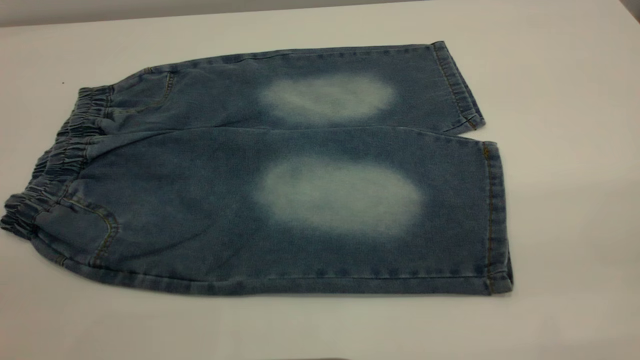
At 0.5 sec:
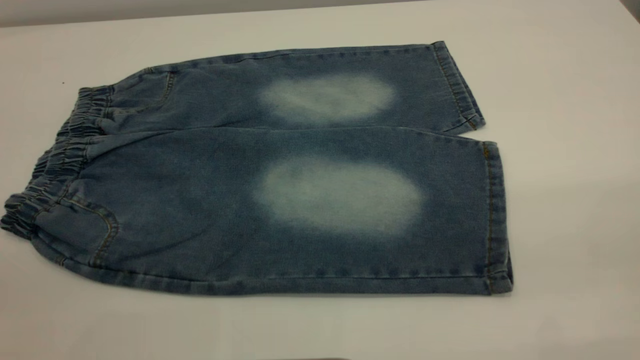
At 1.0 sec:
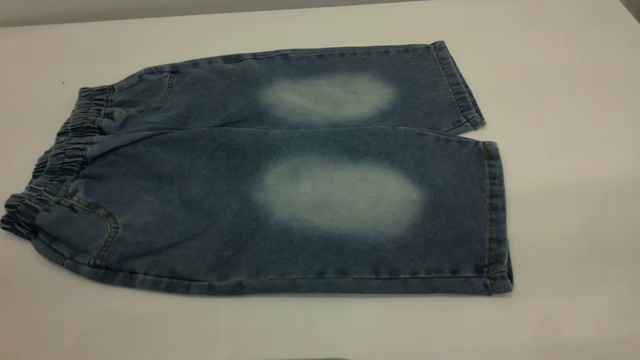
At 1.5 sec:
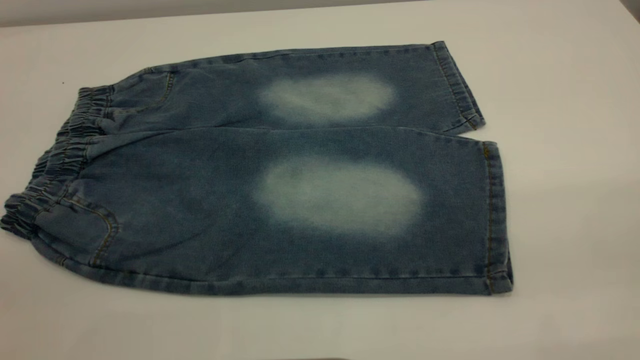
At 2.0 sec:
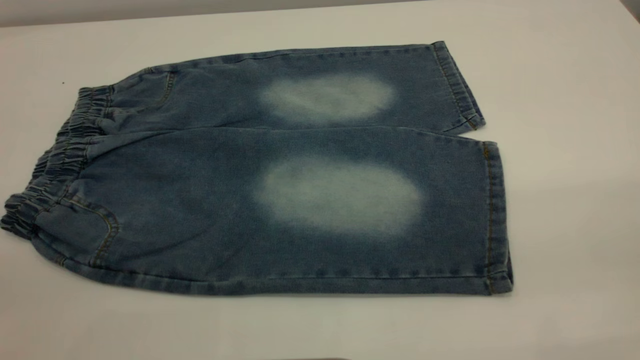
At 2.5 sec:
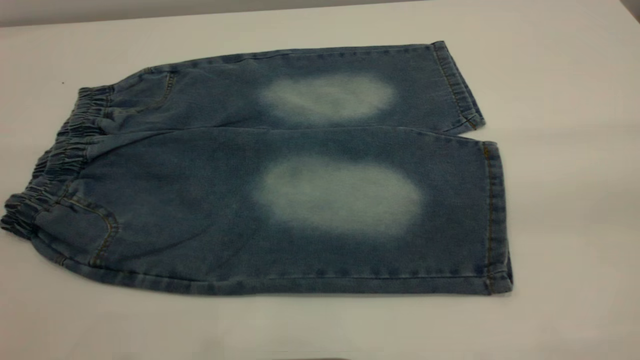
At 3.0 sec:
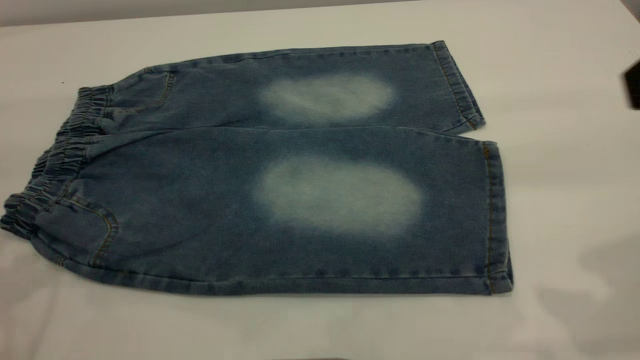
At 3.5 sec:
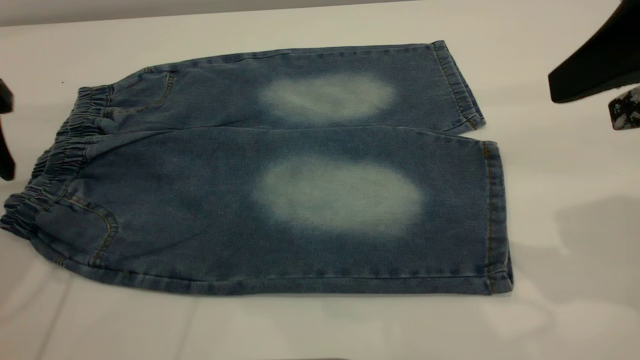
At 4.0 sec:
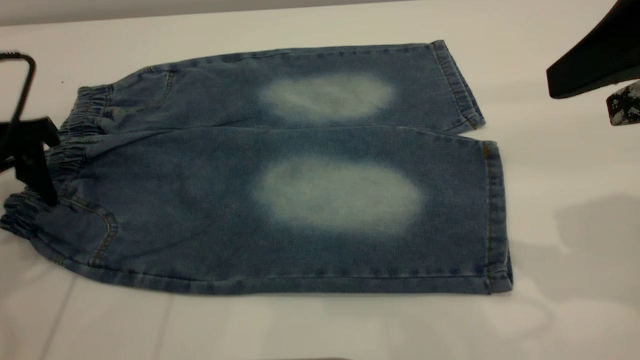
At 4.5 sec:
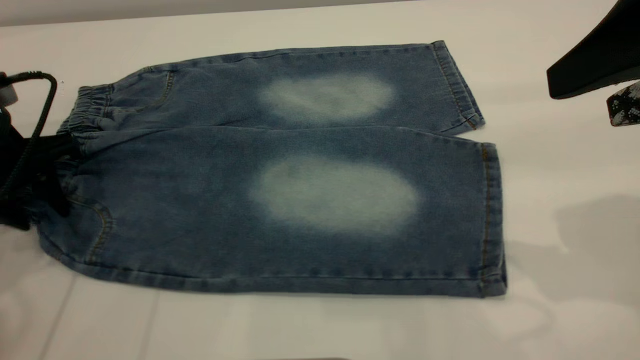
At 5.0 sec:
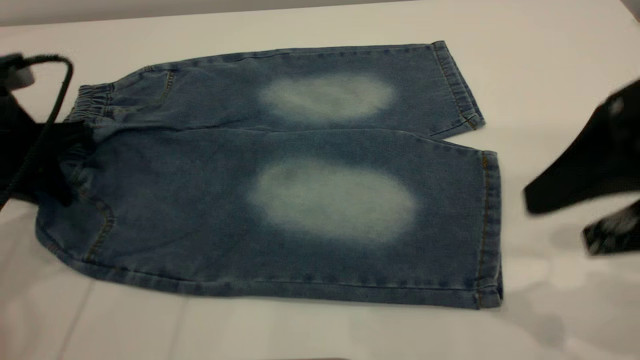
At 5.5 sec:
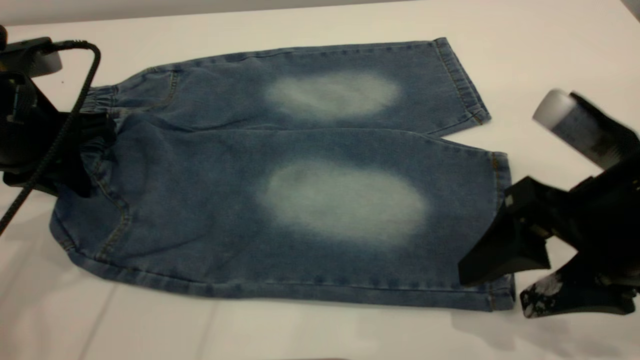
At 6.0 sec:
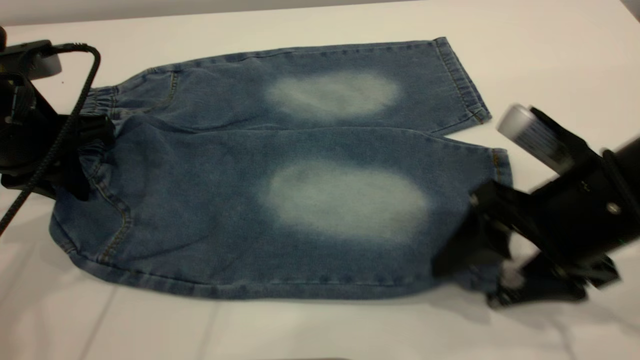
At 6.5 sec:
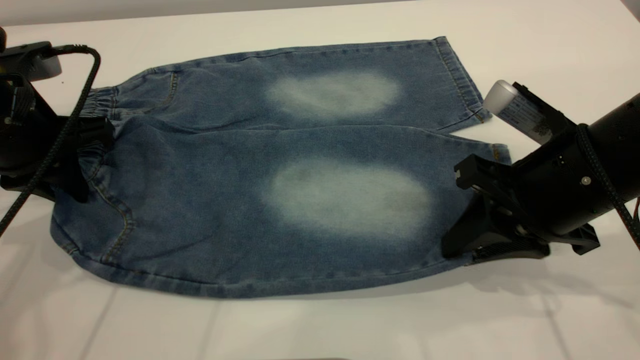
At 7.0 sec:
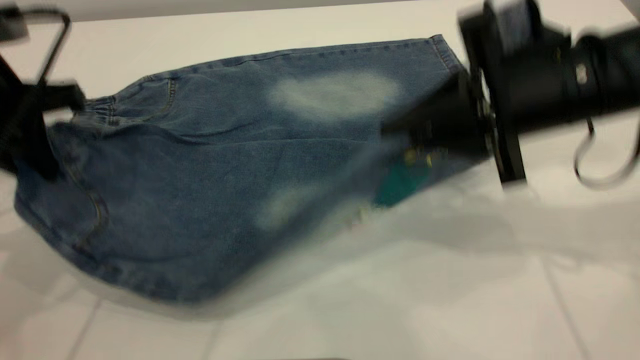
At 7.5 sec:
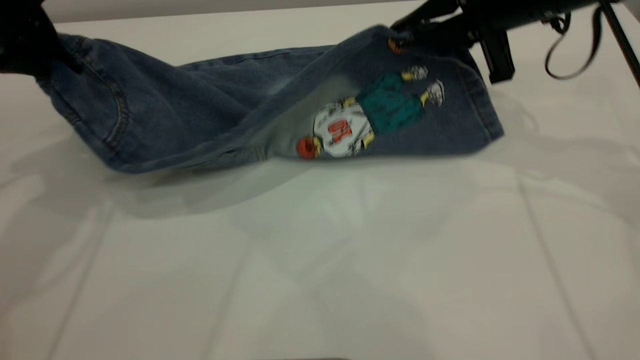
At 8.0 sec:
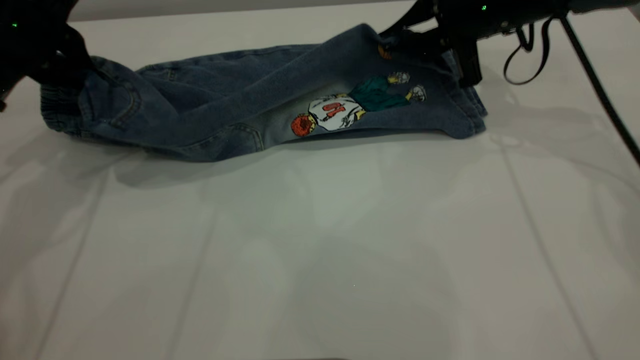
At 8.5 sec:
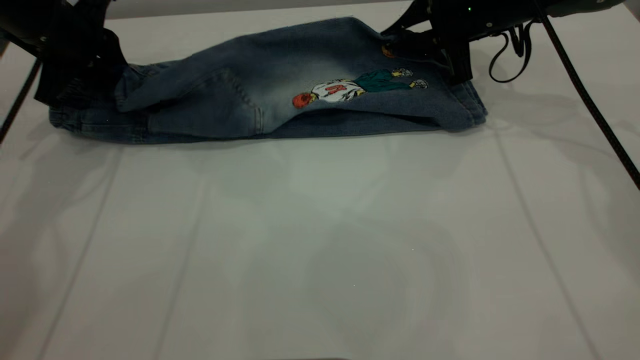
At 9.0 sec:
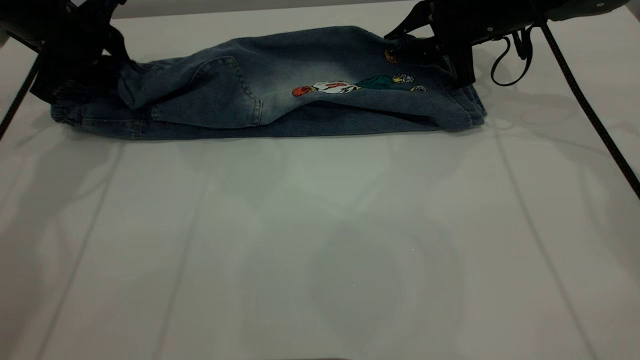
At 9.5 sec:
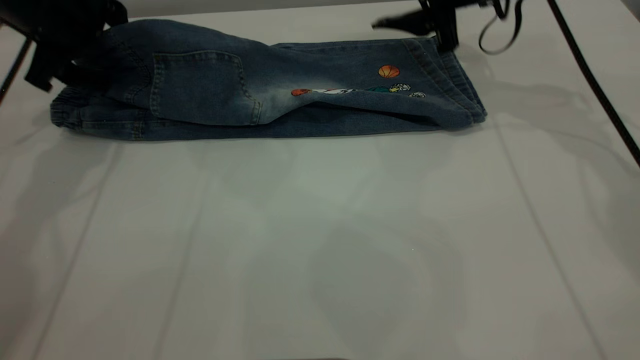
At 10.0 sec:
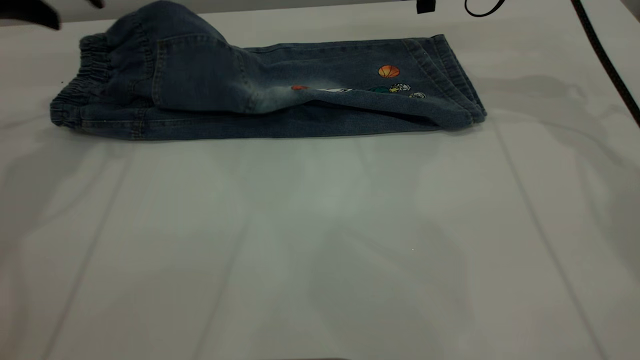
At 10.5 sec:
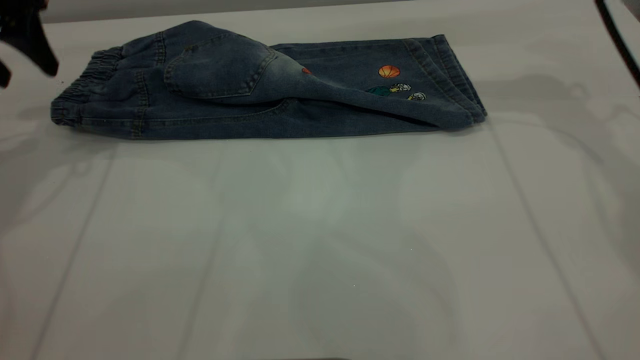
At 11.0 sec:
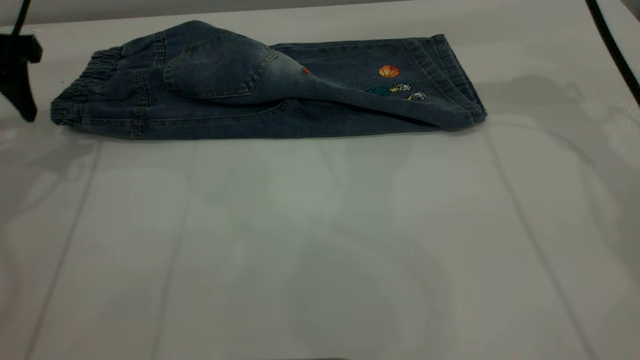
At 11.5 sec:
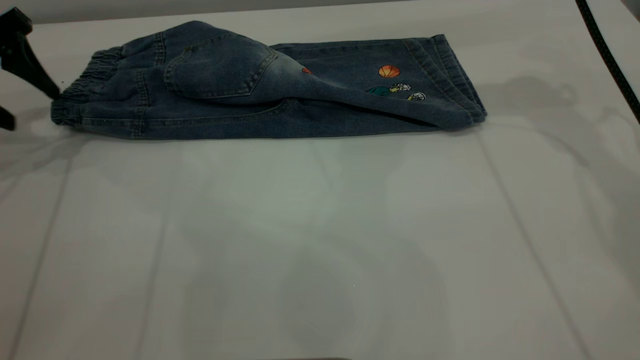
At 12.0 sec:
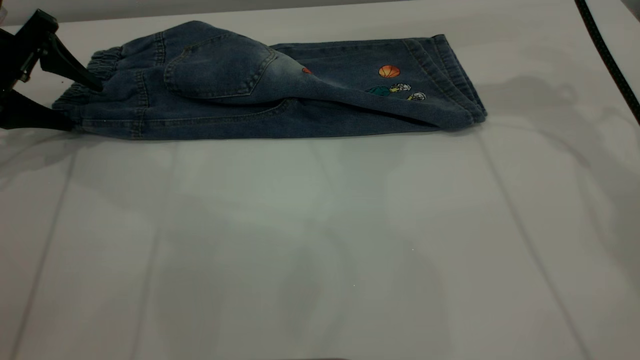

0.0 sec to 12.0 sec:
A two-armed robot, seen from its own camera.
Step, 0.0 sec to 10.0 sec: Fold the bottom of the pants upward.
0.0 sec to 2.0 sec: Both grippers stay put.
2.0 sec to 4.0 sec: The right gripper shifts about 20 cm forward. Meanwhile the left gripper heads forward and downward, covering some 35 cm.
4.0 sec to 6.0 sec: The left gripper closes its fingers, while the right gripper goes some 15 cm downward.
6.0 sec to 8.0 sec: The left gripper moves forward, approximately 10 cm. Meanwhile the right gripper moves forward, approximately 20 cm, and closes its fingers.
8.0 sec to 10.0 sec: Both grippers move upward, about 5 cm. The left gripper opens its fingers. The right gripper opens its fingers.
10.0 sec to 12.0 sec: The left gripper heads downward and to the left, covering some 10 cm.

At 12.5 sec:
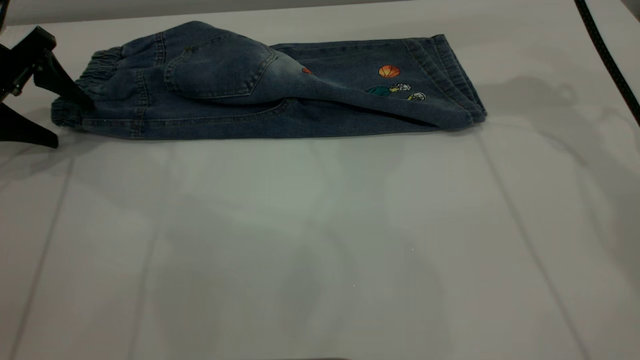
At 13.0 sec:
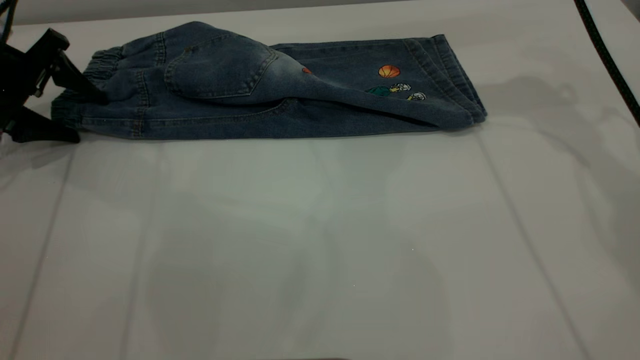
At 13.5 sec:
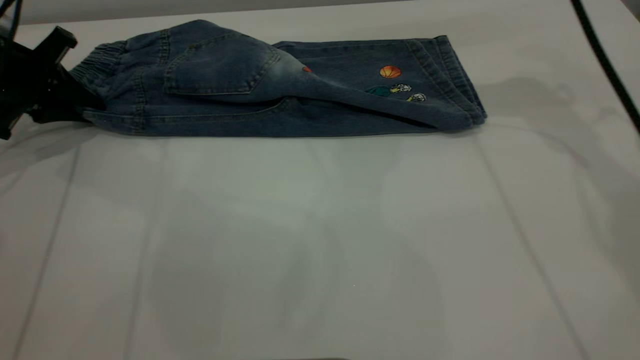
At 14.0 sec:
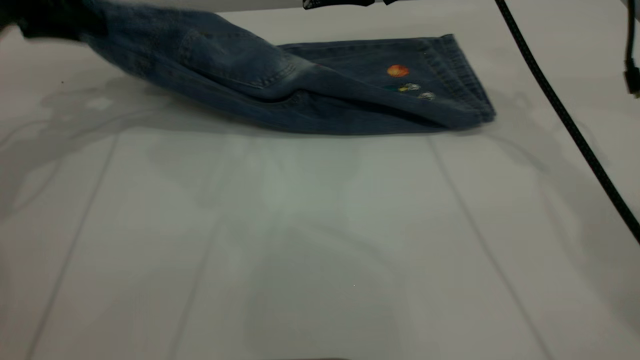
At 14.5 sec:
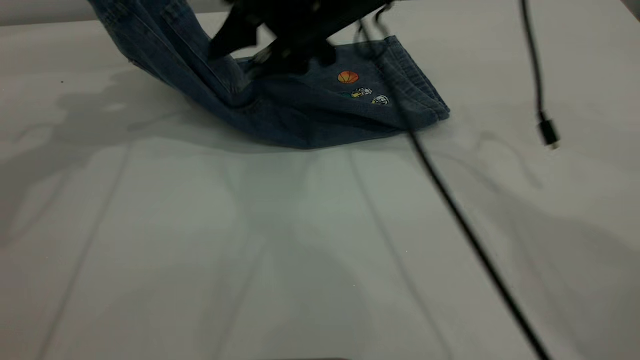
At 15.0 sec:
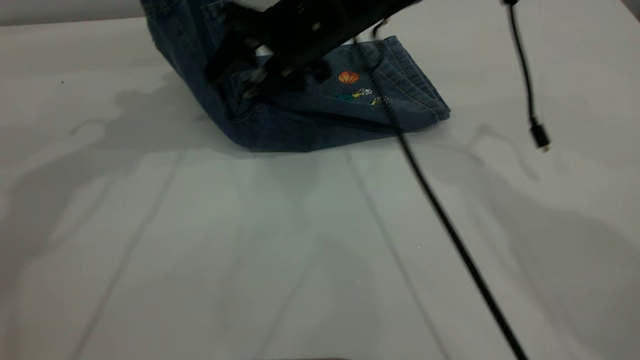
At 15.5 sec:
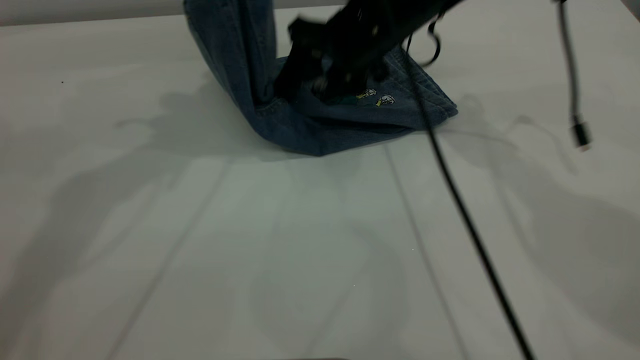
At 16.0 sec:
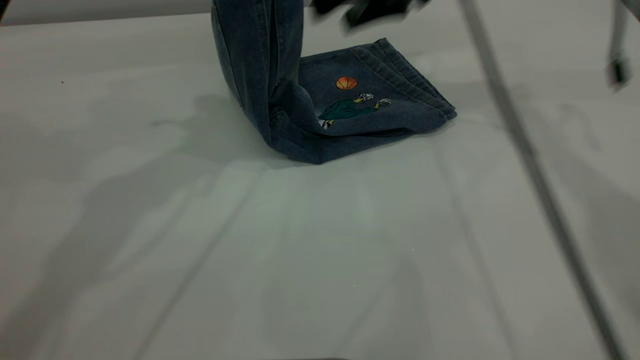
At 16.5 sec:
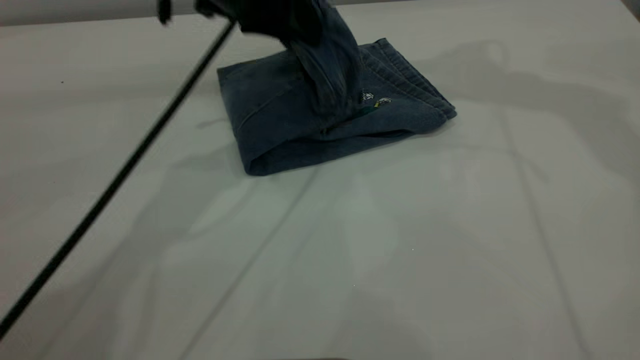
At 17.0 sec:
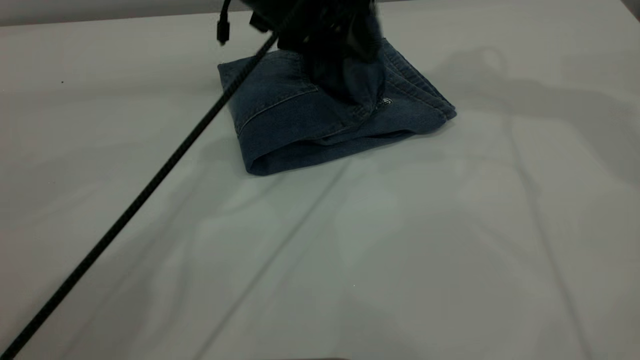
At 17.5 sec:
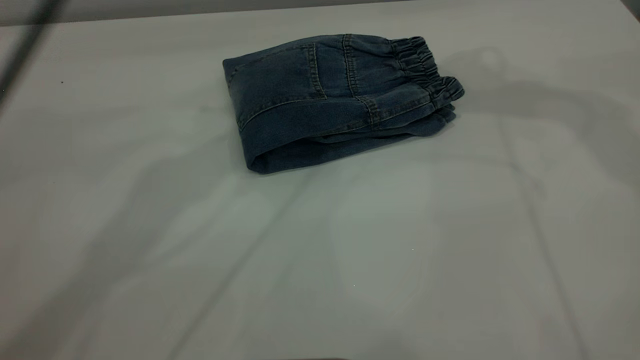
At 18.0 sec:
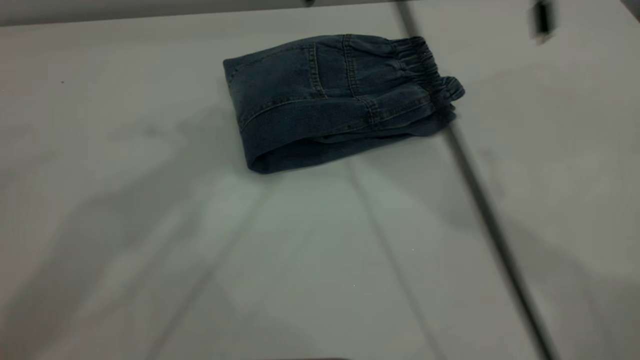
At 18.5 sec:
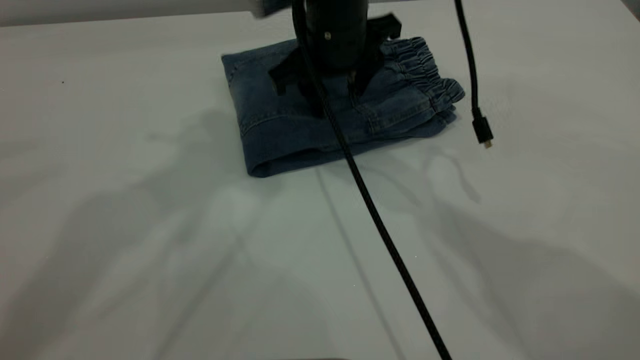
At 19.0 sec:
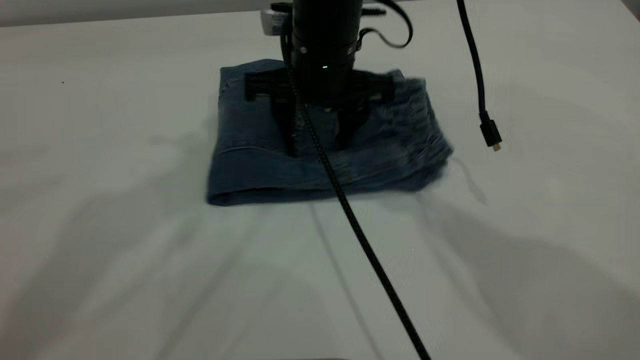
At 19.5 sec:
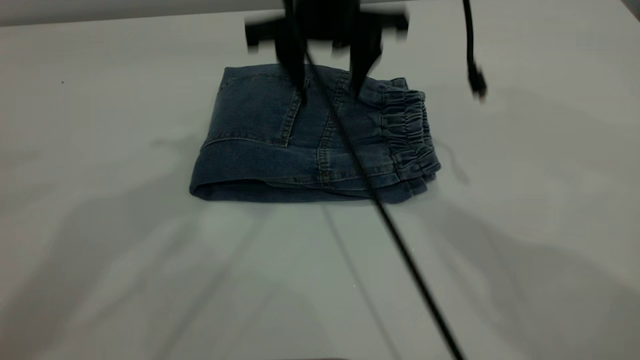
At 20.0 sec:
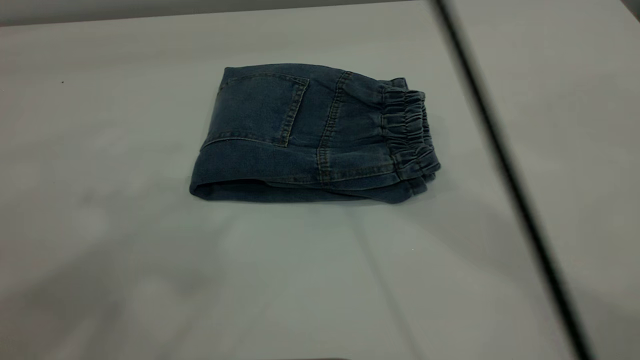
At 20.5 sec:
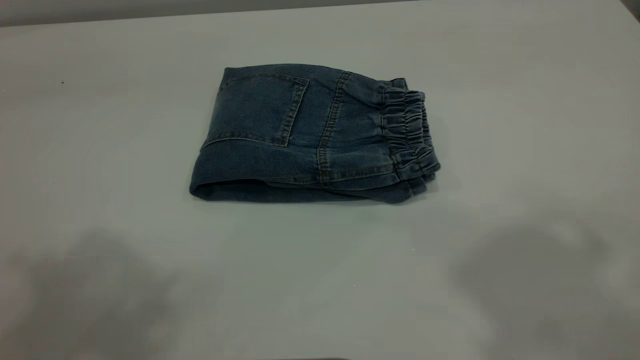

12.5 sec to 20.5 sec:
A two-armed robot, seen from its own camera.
Step, 12.5 sec to 17.5 sec: Fold the pants from left to right.
12.5 sec to 14.5 sec: The left gripper shifts approximately 15 cm upward and to the right, and closes up. Meanwhile the right gripper heads to the left and downward, covering approximately 15 cm.
14.5 sec to 16.5 sec: The left gripper goes some 20 cm to the right and downward, while the right gripper goes roughly 30 cm upward and to the right.
16.5 sec to 18.5 sec: The left gripper goes about 25 cm upward, and opens up. Meanwhile the right gripper goes approximately 30 cm downward and to the left.
18.5 sec to 20.5 sec: The right gripper goes roughly 40 cm upward, backward and to the right. The left gripper heads backward, to the left and upward, covering about 20 cm.
